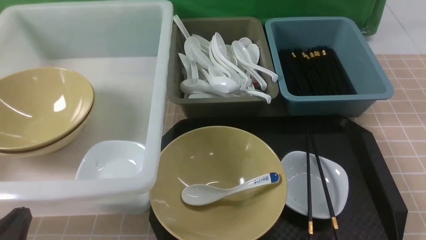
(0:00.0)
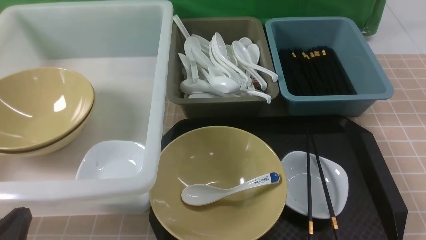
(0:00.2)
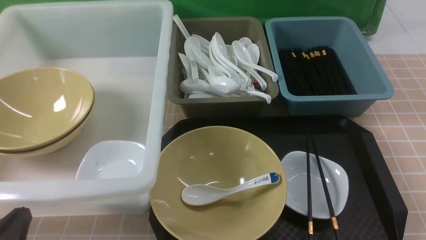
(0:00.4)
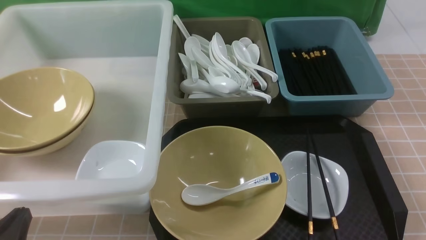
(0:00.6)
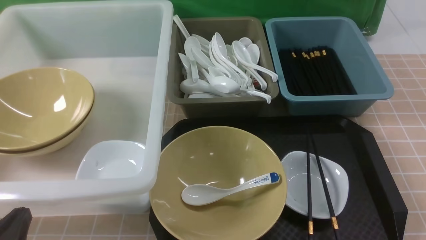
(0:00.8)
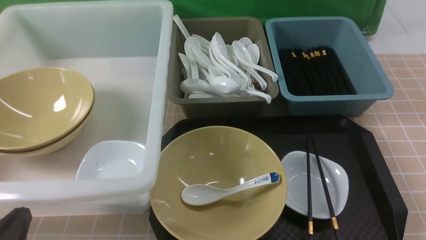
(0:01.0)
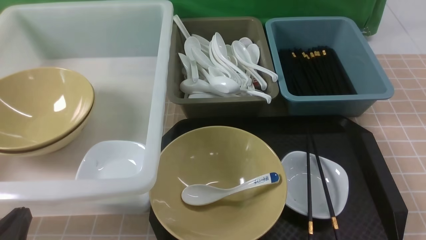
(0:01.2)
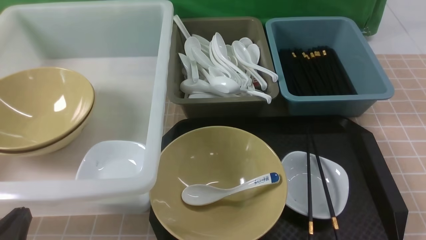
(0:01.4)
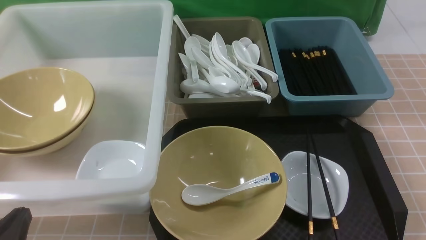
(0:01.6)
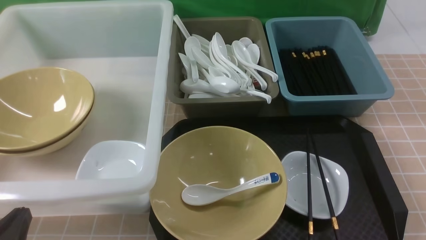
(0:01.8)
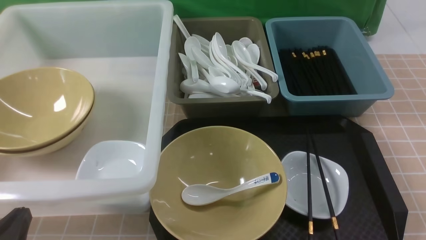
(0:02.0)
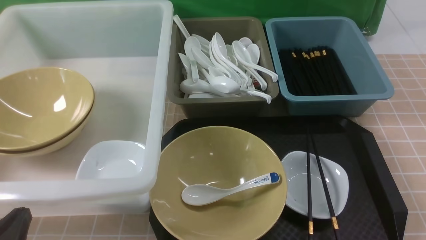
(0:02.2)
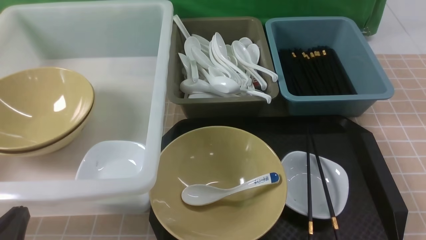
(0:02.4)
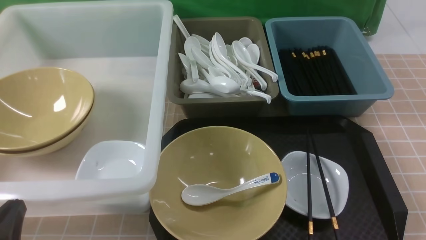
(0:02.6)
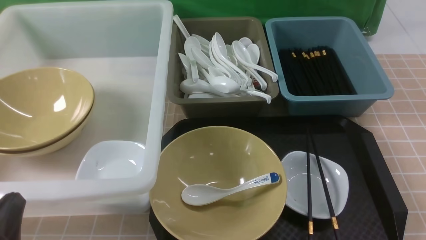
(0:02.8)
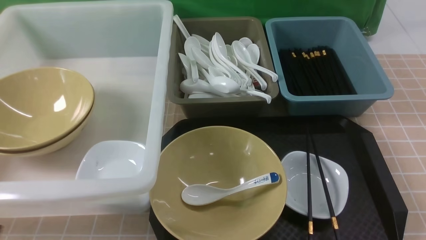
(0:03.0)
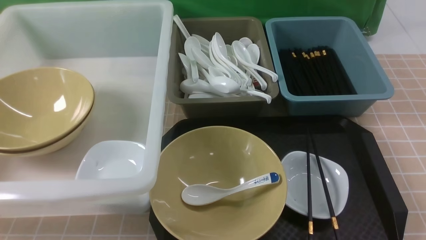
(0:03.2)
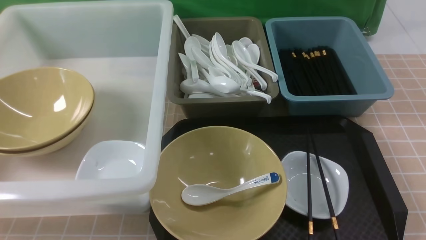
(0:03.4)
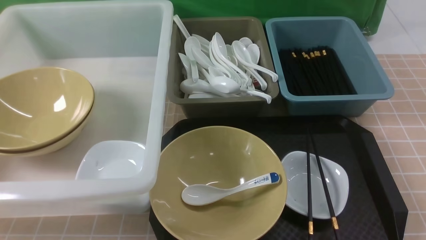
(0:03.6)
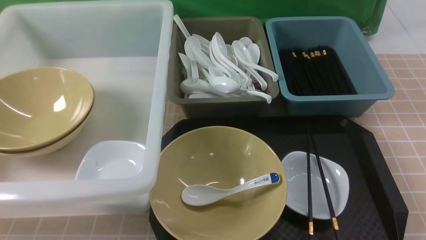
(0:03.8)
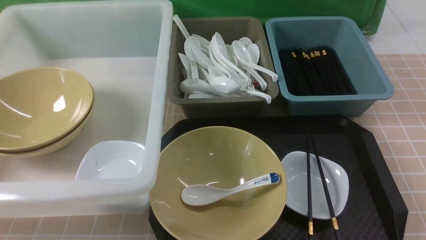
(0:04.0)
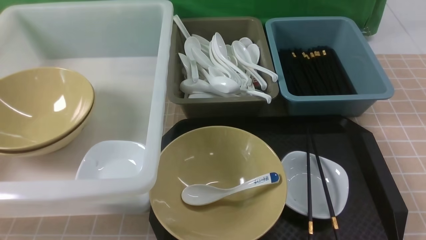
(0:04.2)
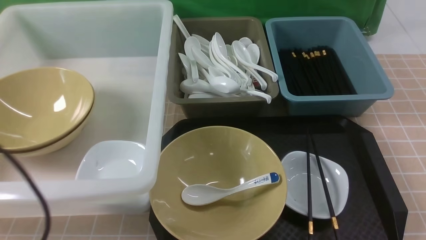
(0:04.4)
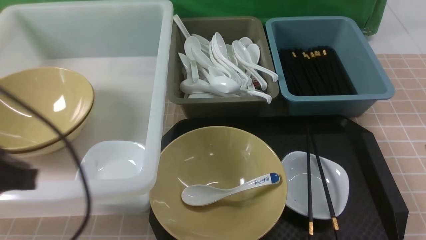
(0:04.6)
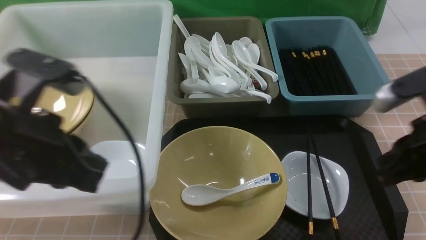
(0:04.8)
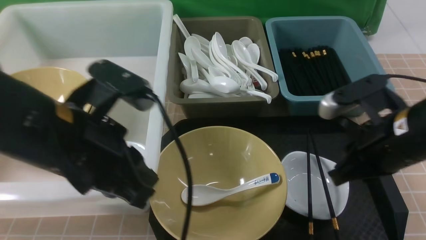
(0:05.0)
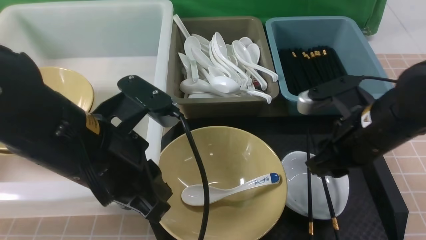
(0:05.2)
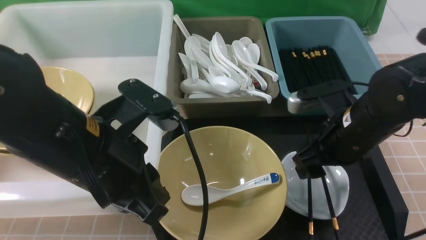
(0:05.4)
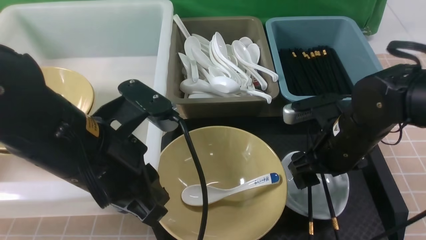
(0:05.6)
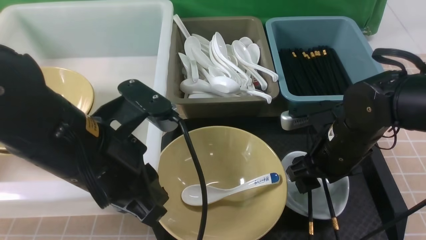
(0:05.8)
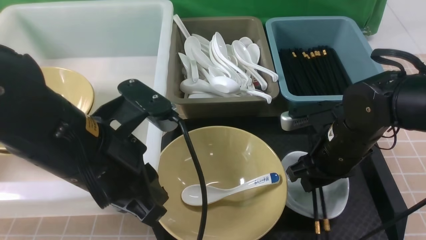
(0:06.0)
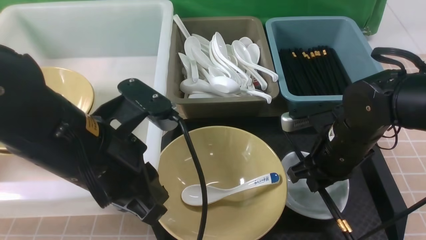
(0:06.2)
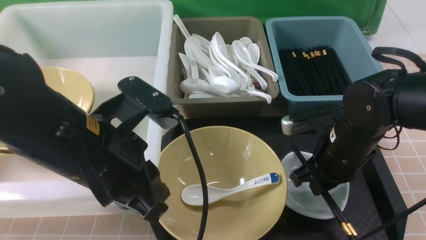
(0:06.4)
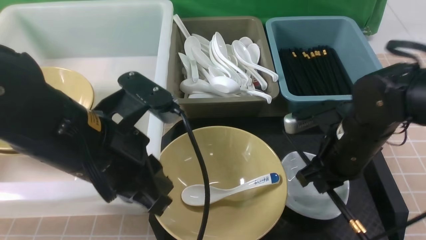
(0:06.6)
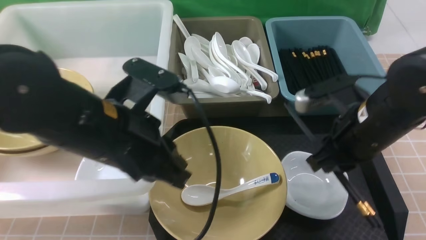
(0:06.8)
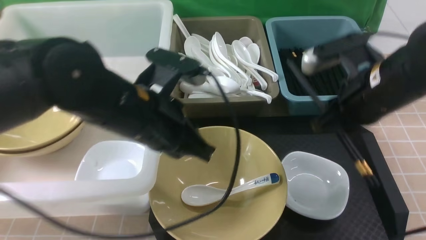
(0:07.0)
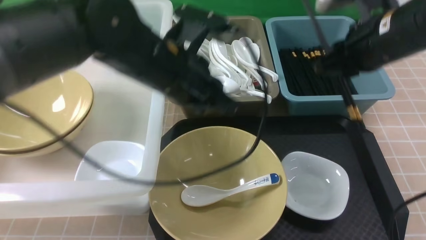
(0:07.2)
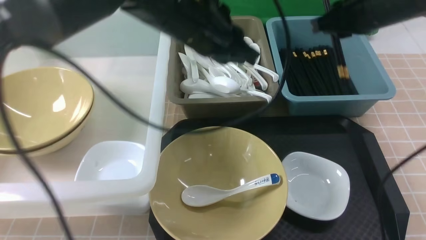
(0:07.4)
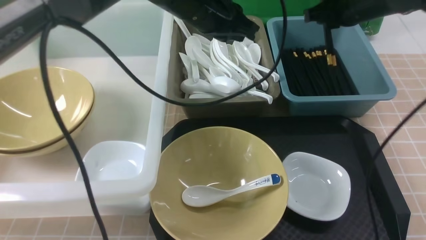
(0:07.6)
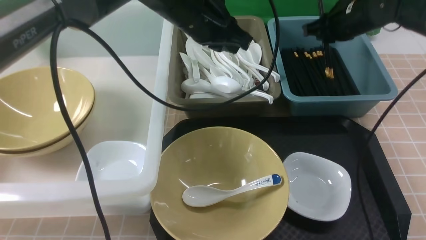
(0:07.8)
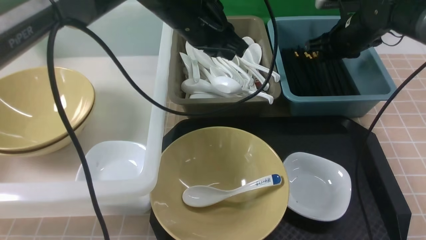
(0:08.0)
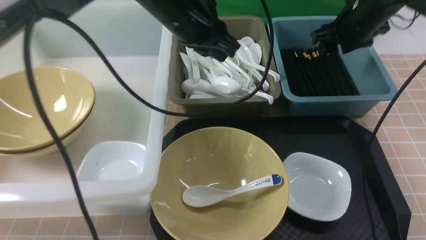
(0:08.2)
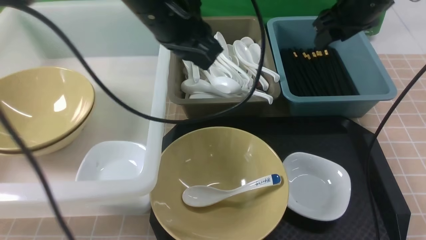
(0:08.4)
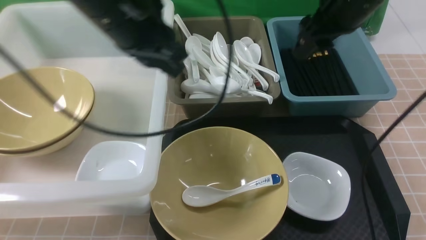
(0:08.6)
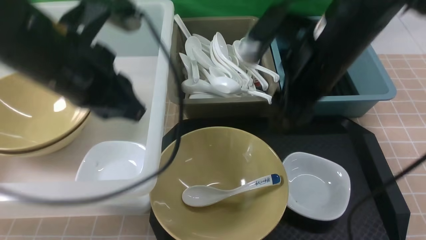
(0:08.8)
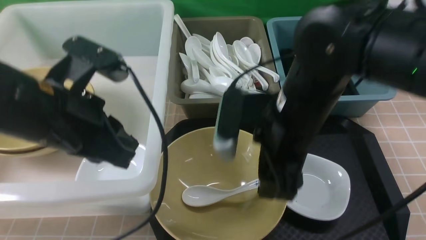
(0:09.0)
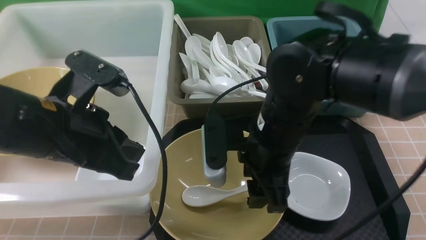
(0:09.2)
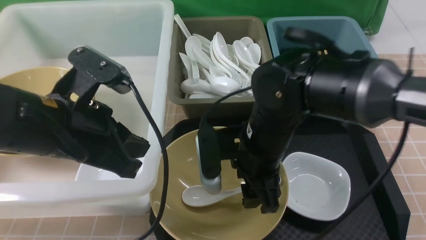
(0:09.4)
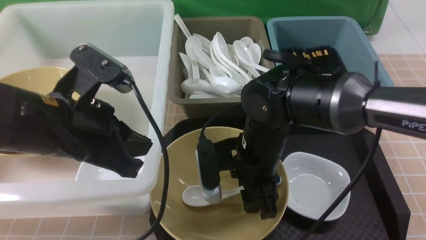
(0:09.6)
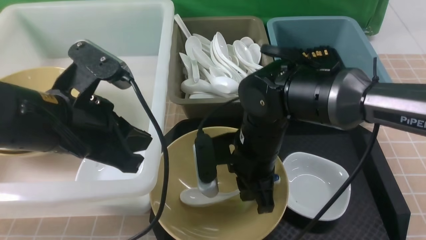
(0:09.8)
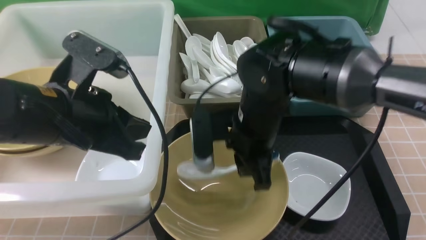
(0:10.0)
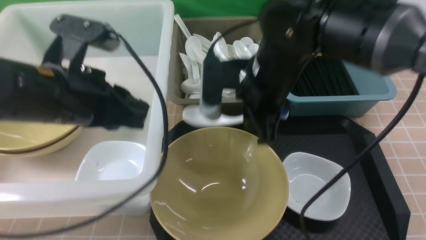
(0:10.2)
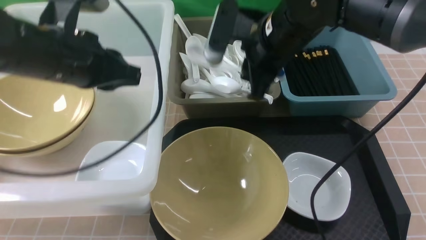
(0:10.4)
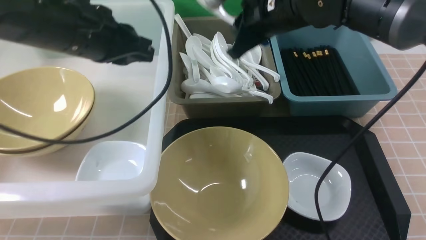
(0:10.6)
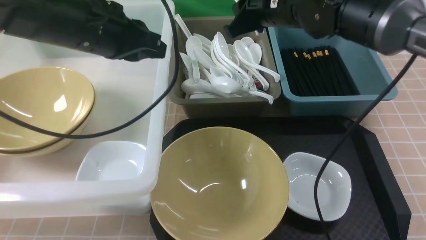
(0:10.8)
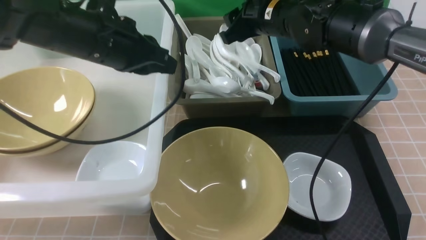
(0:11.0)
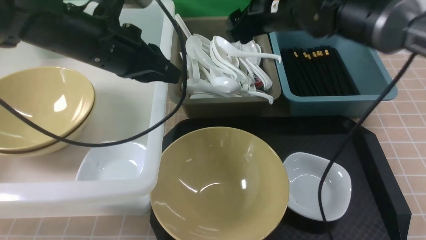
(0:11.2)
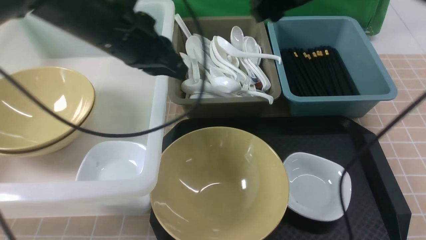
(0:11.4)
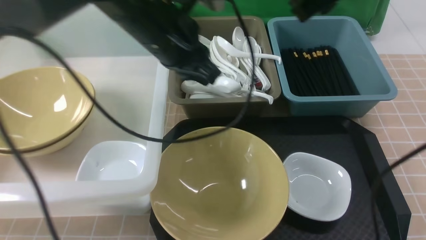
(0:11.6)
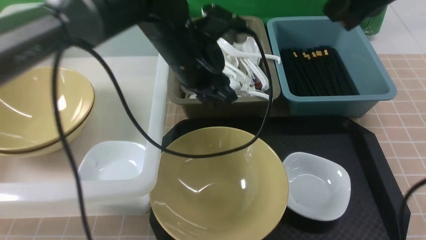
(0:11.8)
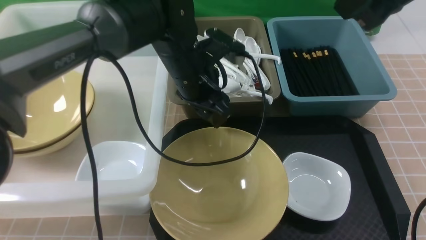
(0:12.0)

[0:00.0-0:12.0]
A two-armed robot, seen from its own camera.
Task of the whole recording: on brown table put chopsticks spoon bowls plates into blue grey white boxes.
Step, 0:00.0 to 0:06.6: use the right arm to grab the chopsticks.
Step, 0:06.8 to 0:08.4: use the right arm to put the chopsticks into the small storage box on the right.
Step, 0:08.6 to 0:10.2: use the right arm to grab the soup spoon in the middle.
Step, 0:10.4 to 0:11.0: use the right arm to put the soup spoon into the small storage box in the middle.
0:00.0 to 0:01.6: The two grippers keep their place.
0:03.0 to 0:04.4: The left gripper shifts some 10 cm upward.
0:04.4 to 0:06.0: The left gripper moves to the right and forward, about 15 cm. Meanwhile the right gripper goes roughly 25 cm forward, to the left and downward, and opens up.
0:06.0 to 0:07.6: The left gripper goes approximately 20 cm forward and to the right. The right gripper heads forward and upward, covering roughly 20 cm, and closes.
0:07.6 to 0:09.0: The two grippers go about 20 cm backward and to the left. The right gripper opens up.
0:09.0 to 0:10.4: The two grippers go roughly 10 cm forward. The right gripper reaches approximately 10 cm downward, then returns, and closes its fingers.
0:10.4 to 0:12.0: The left gripper is displaced to the right, forward and downward by approximately 15 cm, and opens its fingers. The right gripper shifts about 20 cm upward, to the right and backward, and opens, then closes once more.

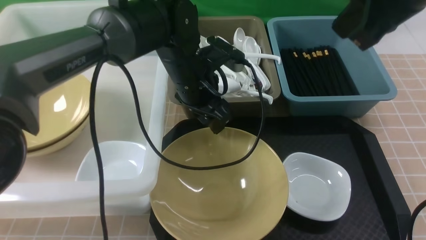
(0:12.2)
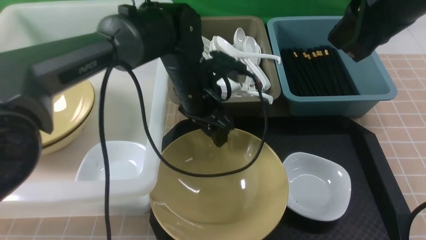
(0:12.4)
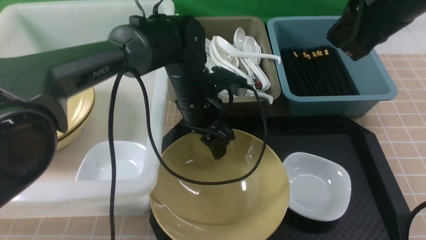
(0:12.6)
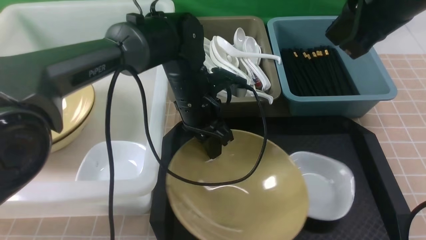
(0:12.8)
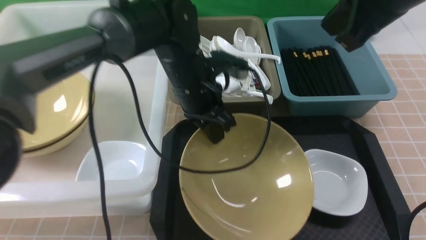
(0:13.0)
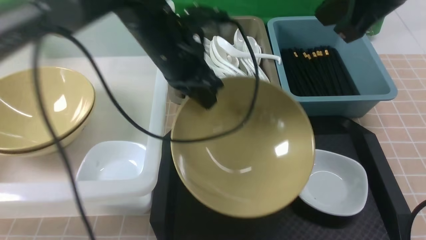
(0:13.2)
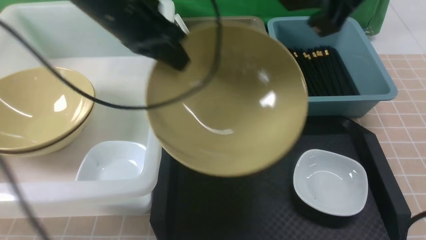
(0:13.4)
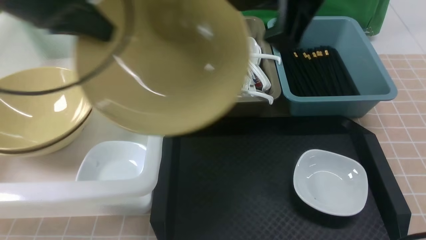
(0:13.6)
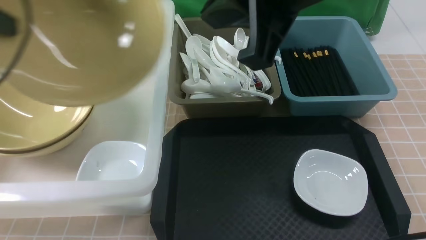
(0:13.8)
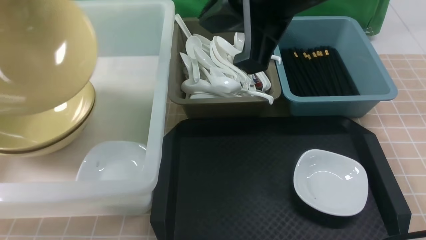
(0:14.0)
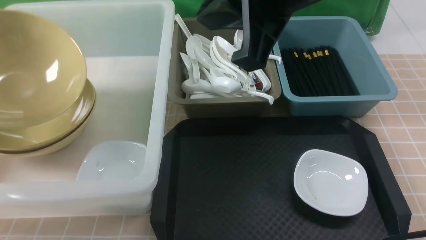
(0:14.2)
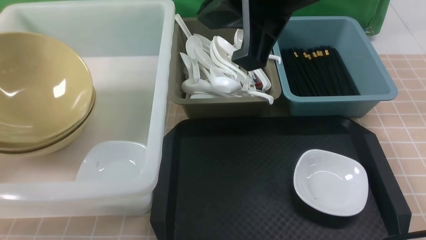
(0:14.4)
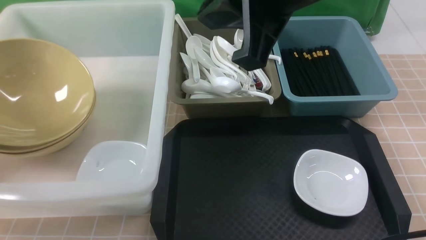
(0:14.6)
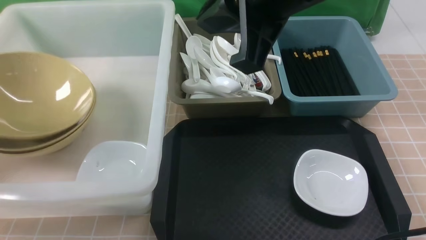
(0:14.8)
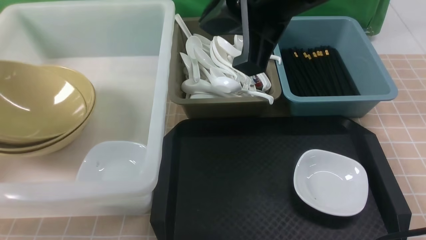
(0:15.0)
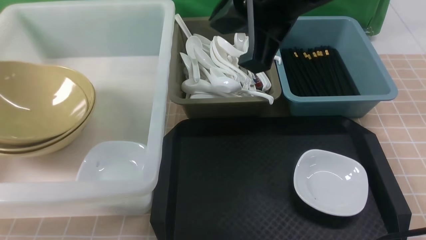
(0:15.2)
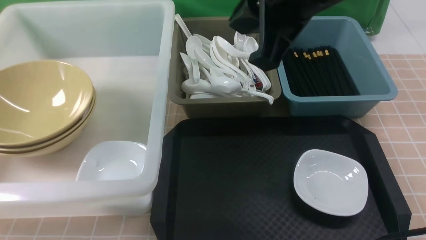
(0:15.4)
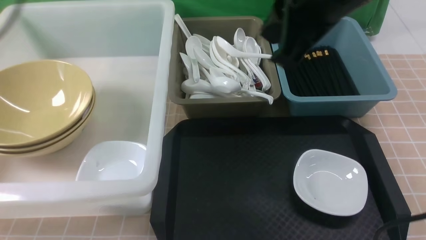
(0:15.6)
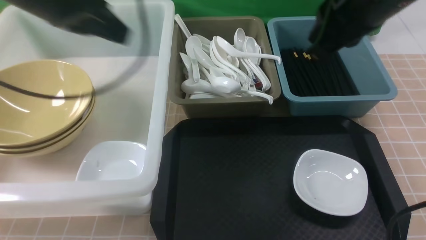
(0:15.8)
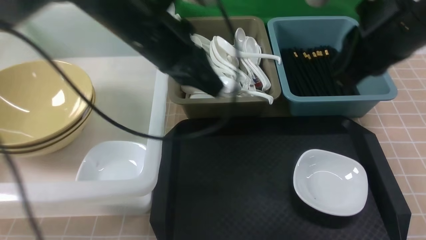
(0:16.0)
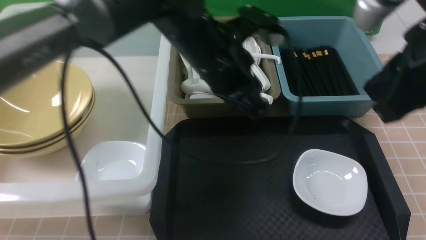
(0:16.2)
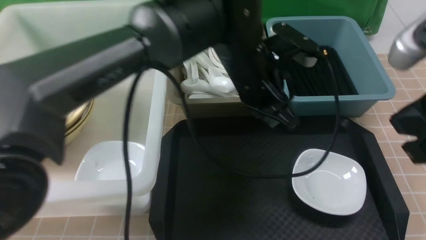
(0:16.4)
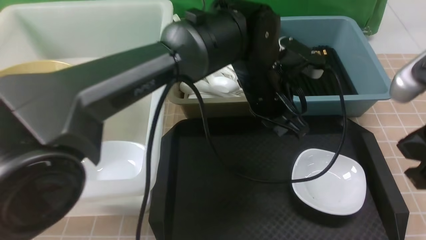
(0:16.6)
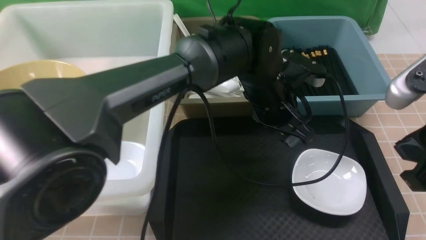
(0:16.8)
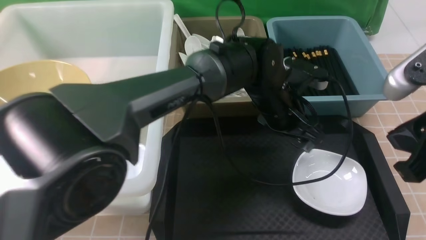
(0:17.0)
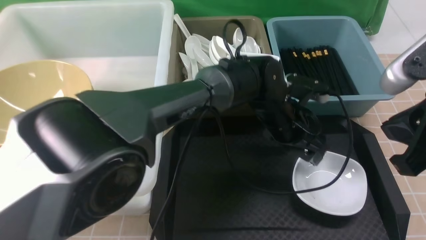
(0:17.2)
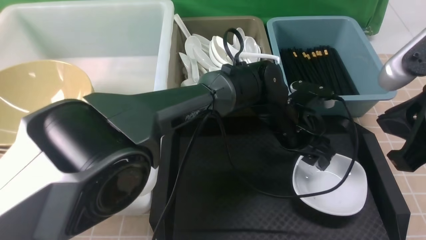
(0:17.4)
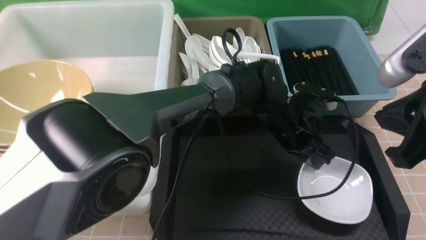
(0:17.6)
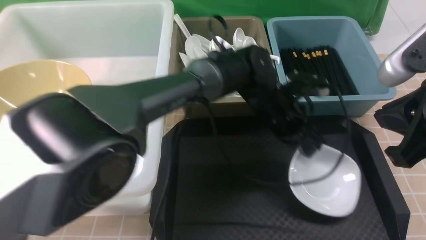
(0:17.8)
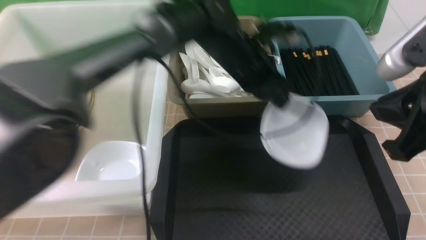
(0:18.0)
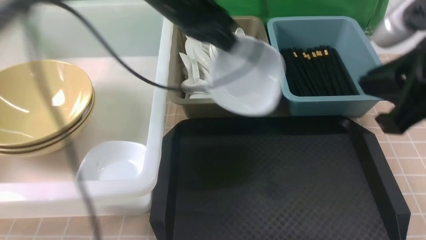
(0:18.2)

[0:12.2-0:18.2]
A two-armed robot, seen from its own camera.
Task of the whole recording: on brown table put chopsticks spoon bowls plates into blue grey white boxes.
Step, 0:12.2 to 0:13.2: use the left arm to grab the yellow noodle bowl on the left.
Step, 0:13.4 to 0:15.8: use the left arm to put the noodle bowl into the large storage box on the left.
Step, 0:16.0 to 0:18.0: use the left arm to grab the plate.
0:12.2 to 0:13.8: The right gripper moves to the left, roughly 10 cm. The left gripper moves to the left and upward, approximately 35 cm, and closes its fingers.
0:13.8 to 0:15.2: The left gripper shifts roughly 10 cm to the left, reaches approximately 10 cm downward, then returns, and opens.
0:15.2 to 0:16.6: The right gripper goes about 20 cm to the right, downward and backward. The left gripper travels to the right by about 50 cm, and closes its fingers.
0:16.6 to 0:18.2: The left gripper travels to the left and upward by some 20 cm, and opens, then closes again, while the right gripper moves about 5 cm.
